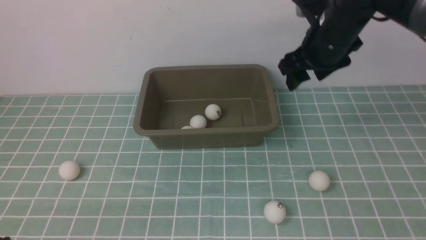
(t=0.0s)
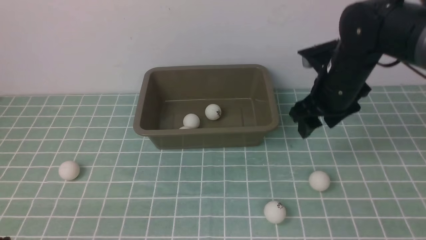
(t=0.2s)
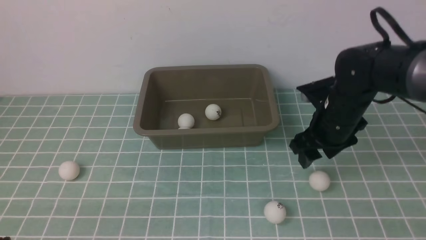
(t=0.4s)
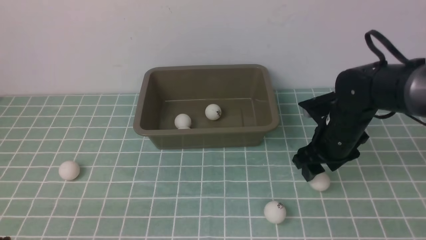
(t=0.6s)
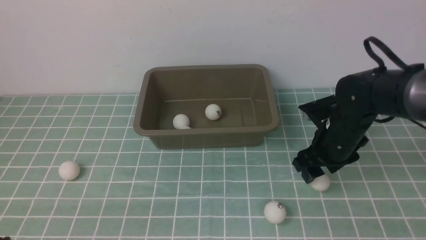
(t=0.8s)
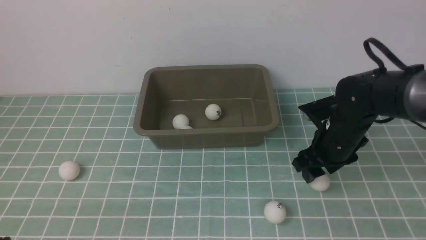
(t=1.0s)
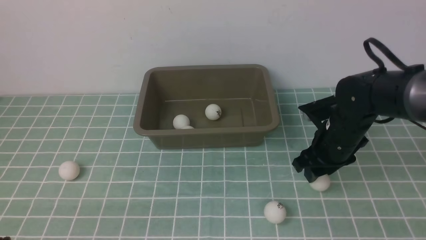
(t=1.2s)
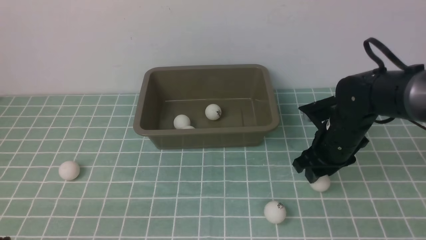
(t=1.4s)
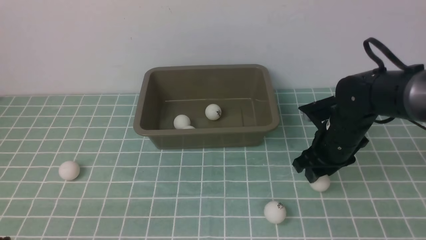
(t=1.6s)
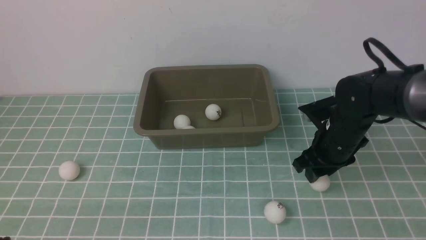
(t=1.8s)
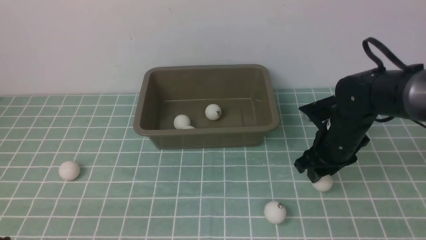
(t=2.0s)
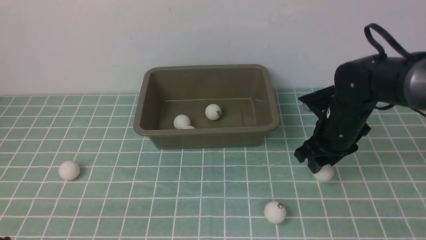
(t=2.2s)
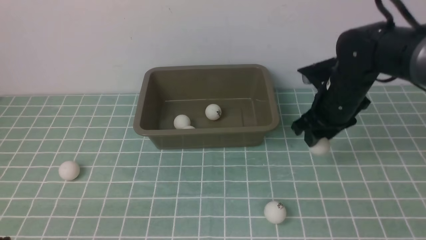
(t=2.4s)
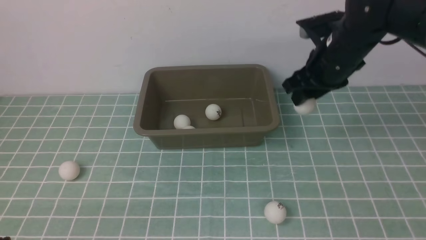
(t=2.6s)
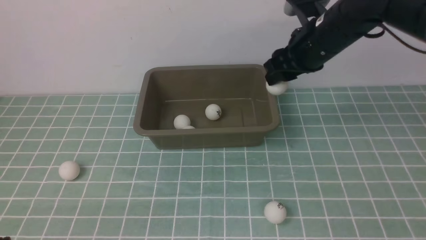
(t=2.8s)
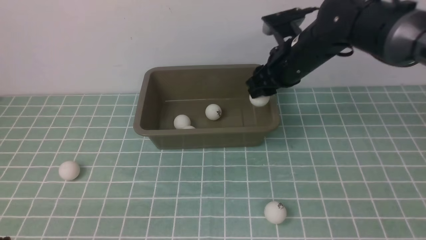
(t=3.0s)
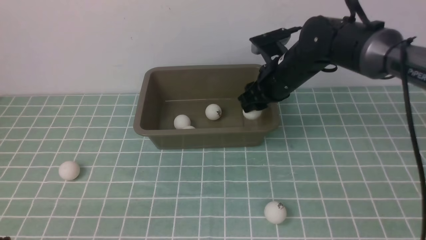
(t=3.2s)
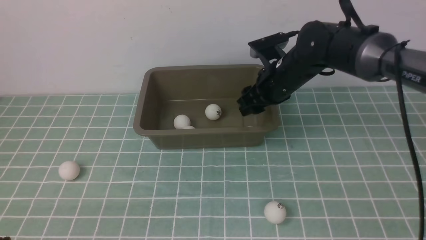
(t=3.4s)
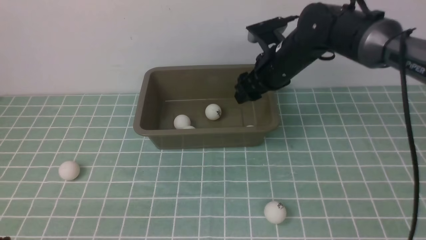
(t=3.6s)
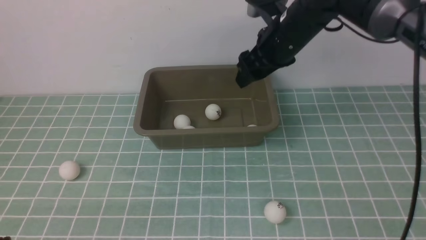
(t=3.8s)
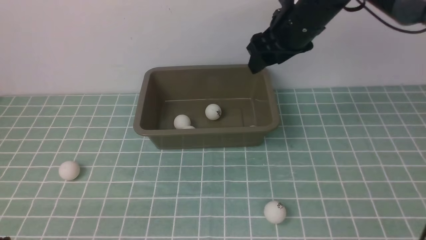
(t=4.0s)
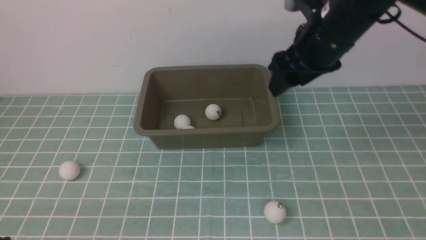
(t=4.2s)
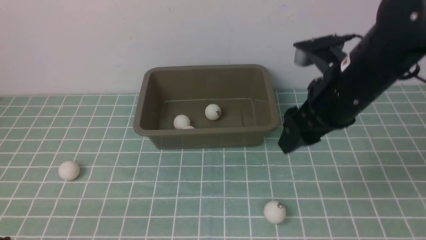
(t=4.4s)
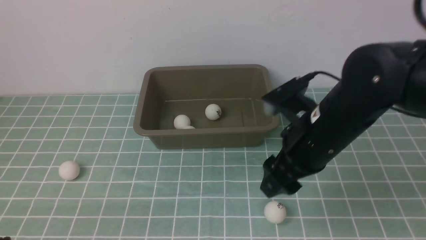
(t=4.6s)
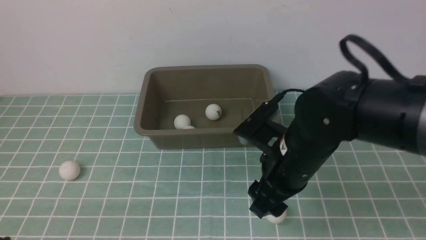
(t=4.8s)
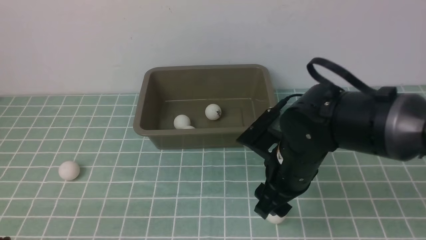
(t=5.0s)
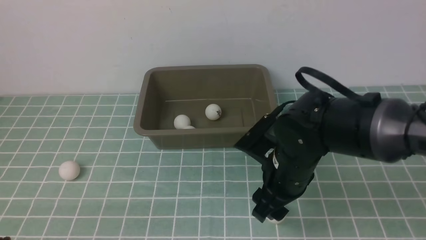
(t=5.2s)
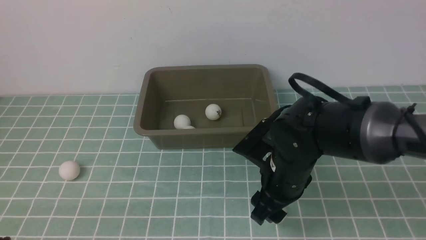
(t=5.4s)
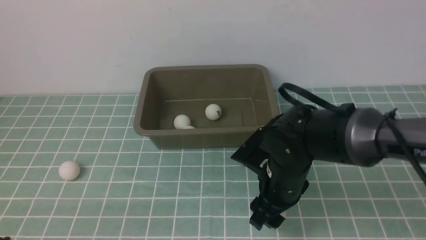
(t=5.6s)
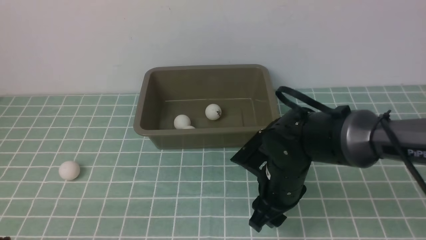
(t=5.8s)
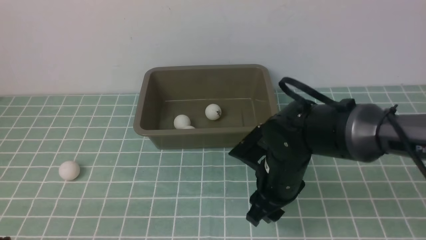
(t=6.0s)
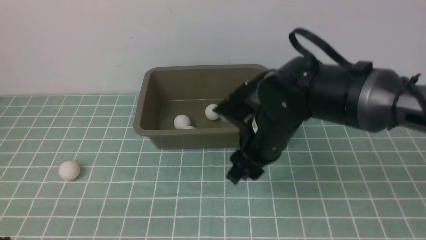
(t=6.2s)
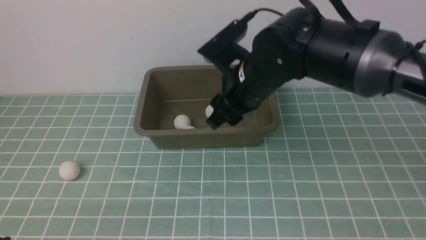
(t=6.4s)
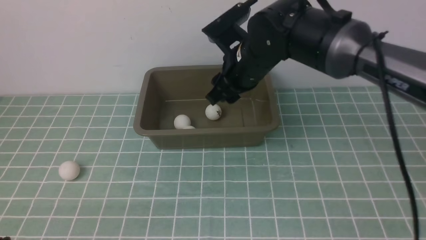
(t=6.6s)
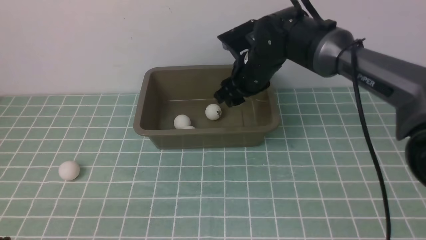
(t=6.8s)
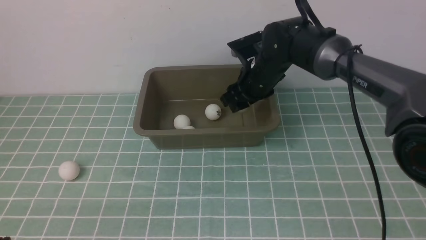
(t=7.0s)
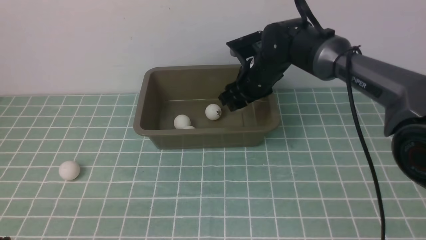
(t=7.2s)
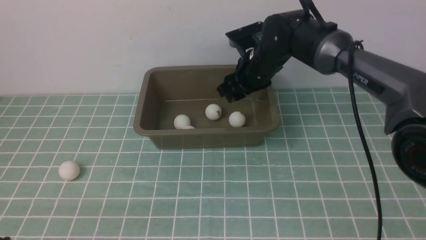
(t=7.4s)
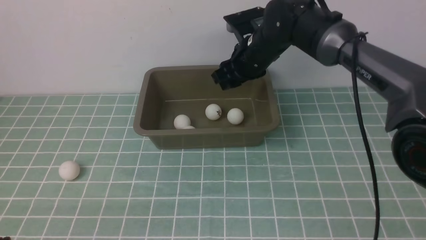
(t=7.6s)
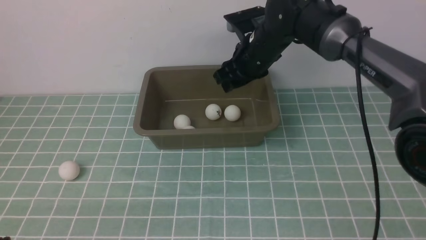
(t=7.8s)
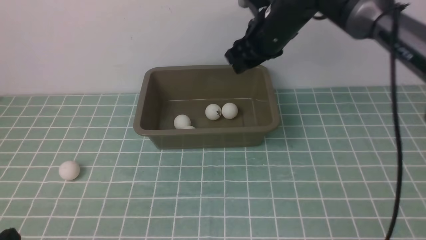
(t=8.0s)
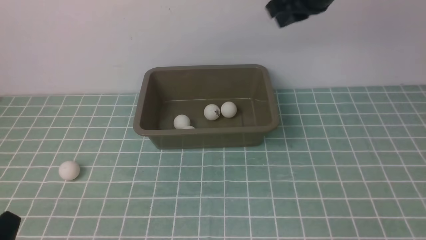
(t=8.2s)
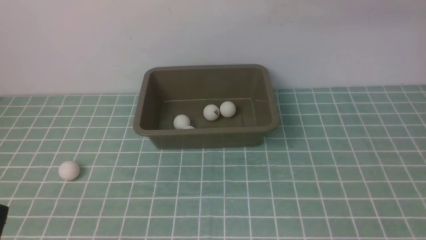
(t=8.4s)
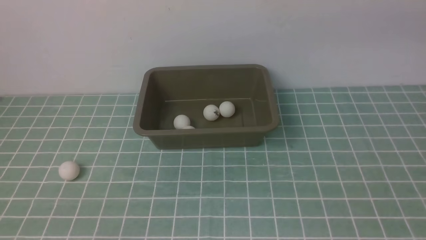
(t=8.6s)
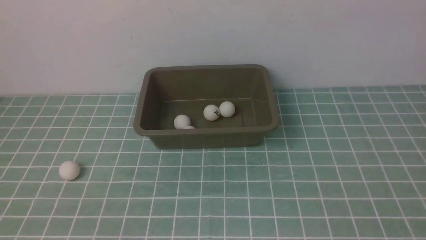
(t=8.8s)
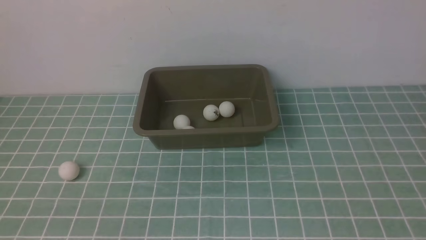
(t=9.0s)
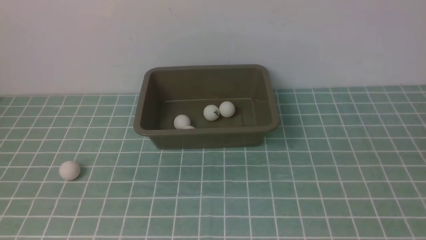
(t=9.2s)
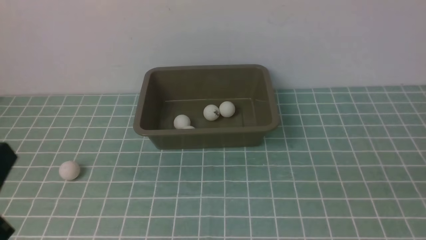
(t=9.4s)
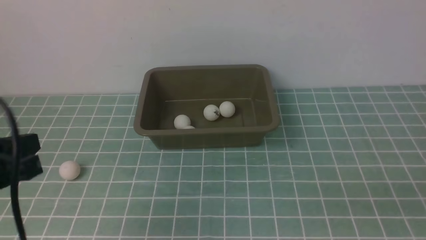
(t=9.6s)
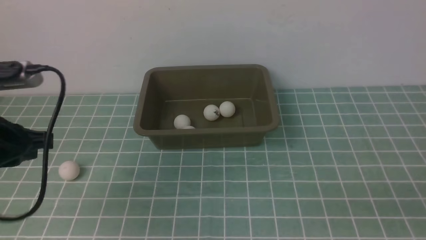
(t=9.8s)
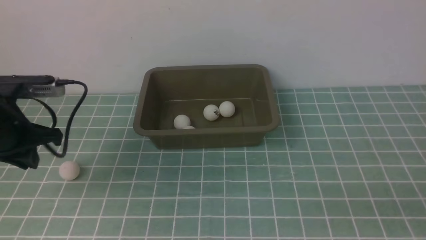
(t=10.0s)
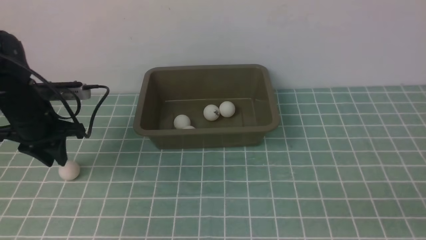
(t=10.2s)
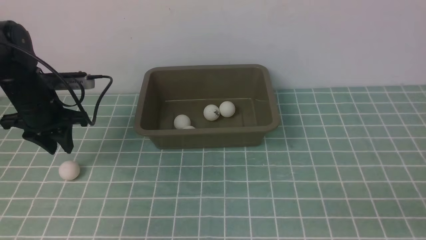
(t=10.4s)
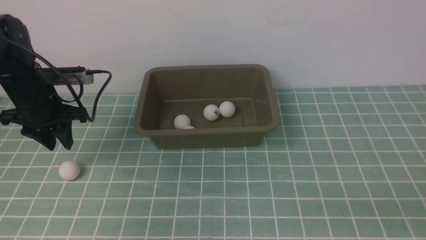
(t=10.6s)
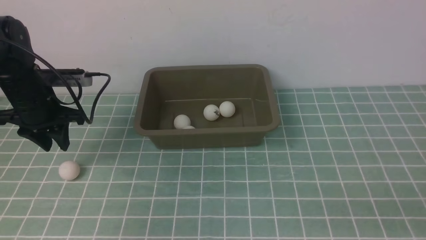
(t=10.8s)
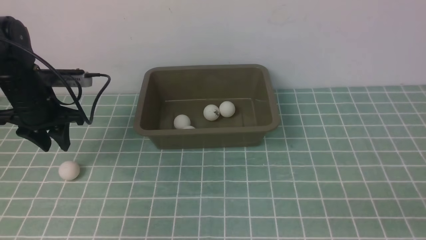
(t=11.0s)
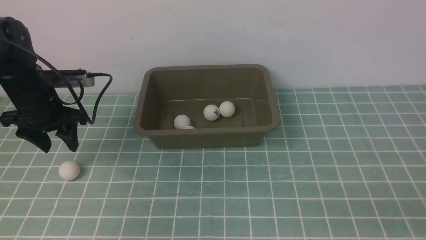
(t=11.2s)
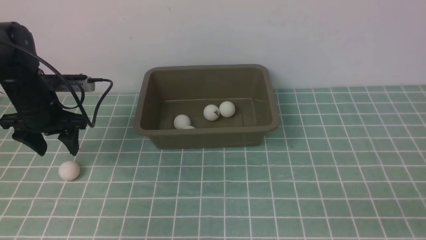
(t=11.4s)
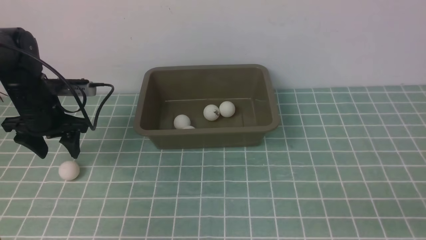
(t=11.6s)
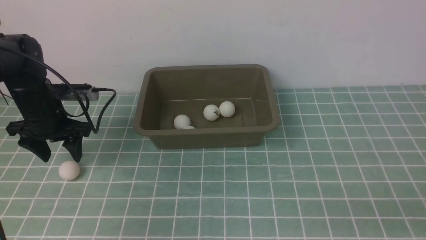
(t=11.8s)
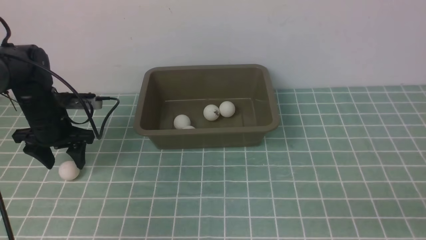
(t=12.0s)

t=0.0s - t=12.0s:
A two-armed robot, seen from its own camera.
Step, t=0.0s - t=2.4s: use the right arm to clamp the table tennis ball closest to it.
Step, t=2.6s - t=3.4s: use the right arm to put the table tennis ball into the box.
Step, t=3.8s - t=6.2s: use the right arm to clamp the table tennis ball closest to it.
Step, t=6.4s - t=7.4s: use the right arm to put the table tennis ball into the box.
t=0.0s - t=1.6s: The right gripper is displaced downward by about 10 cm.
t=1.6s - t=3.0s: The right gripper moves forward, upward and to the left, approximately 15 cm.
t=3.0s - t=4.4s: The right gripper is displaced backward by some 15 cm.
t=4.4s - t=6.0s: The right gripper moves forward and to the left, roughly 15 cm.
t=6.0s - t=7.6s: The right gripper is displaced upward and to the right by about 25 cm, and closes up.
t=7.6s - t=9.0s: The left gripper travels upward by some 10 cm, while the right gripper goes roughly 35 cm backward and downward.
t=9.0s - t=10.4s: The left gripper heads forward, covering approximately 30 cm, and opens its fingers.
t=10.4s - t=12.0s: The left gripper goes about 5 cm downward, and opens.

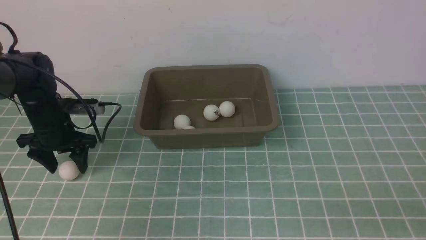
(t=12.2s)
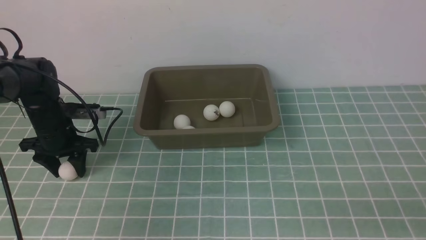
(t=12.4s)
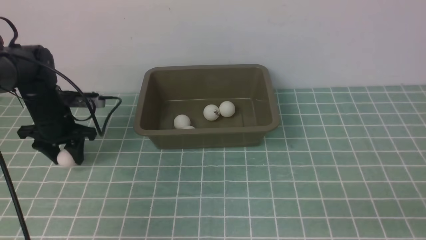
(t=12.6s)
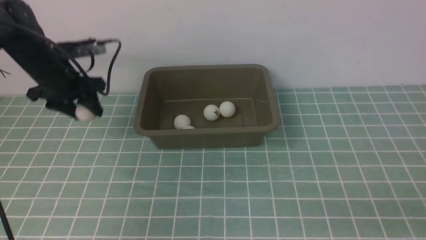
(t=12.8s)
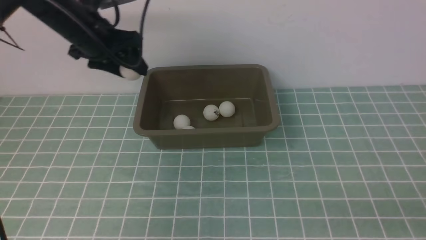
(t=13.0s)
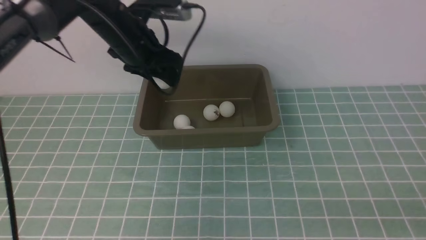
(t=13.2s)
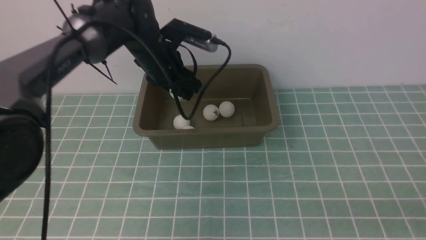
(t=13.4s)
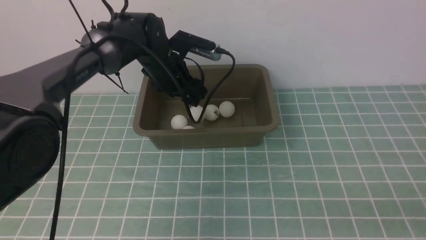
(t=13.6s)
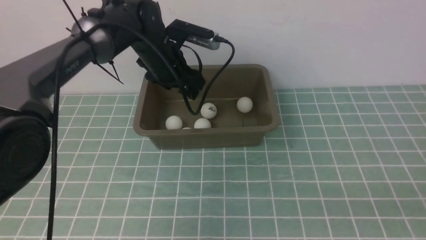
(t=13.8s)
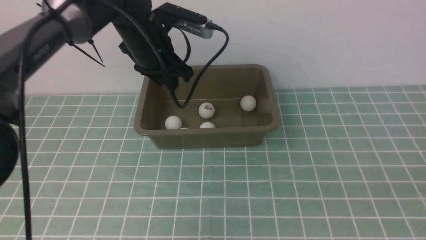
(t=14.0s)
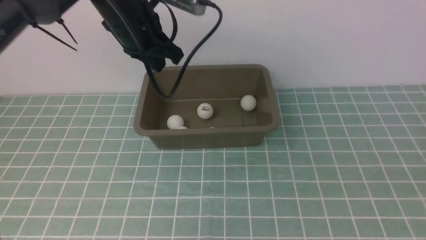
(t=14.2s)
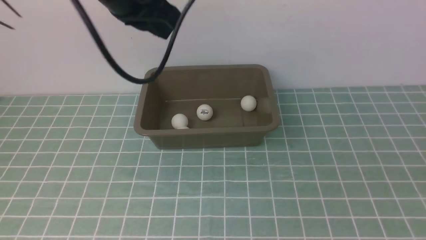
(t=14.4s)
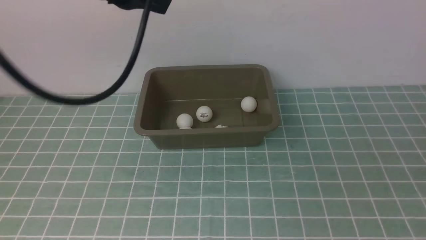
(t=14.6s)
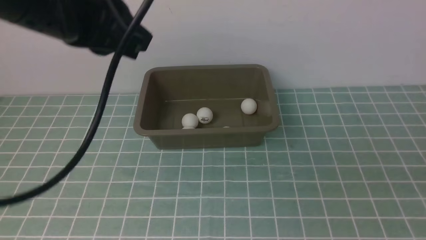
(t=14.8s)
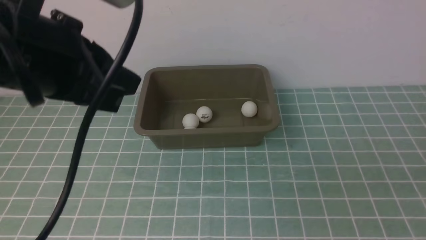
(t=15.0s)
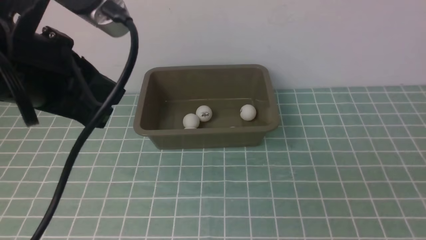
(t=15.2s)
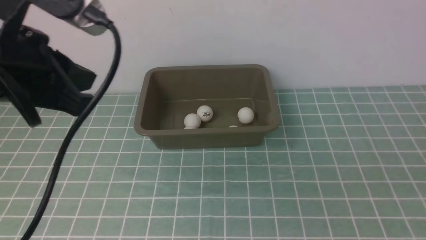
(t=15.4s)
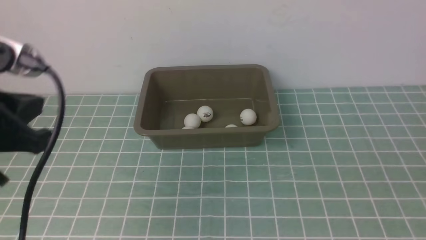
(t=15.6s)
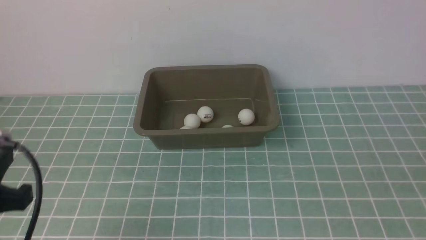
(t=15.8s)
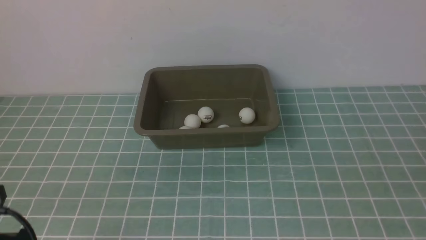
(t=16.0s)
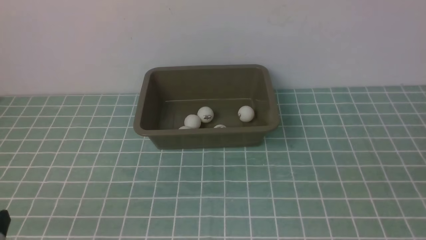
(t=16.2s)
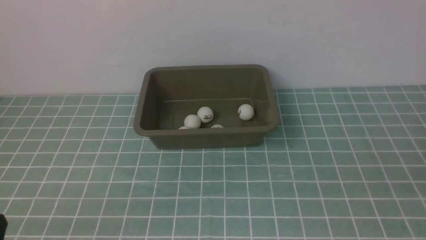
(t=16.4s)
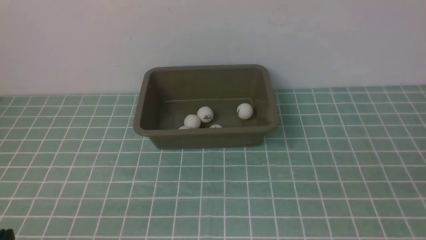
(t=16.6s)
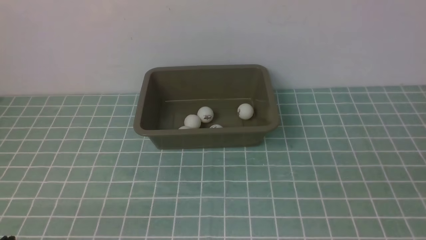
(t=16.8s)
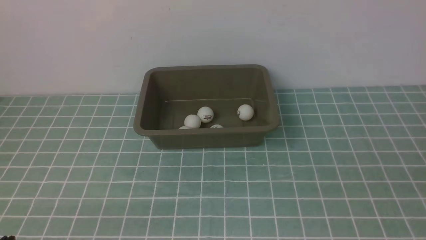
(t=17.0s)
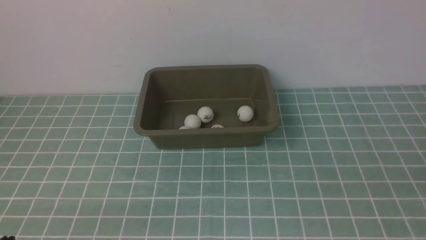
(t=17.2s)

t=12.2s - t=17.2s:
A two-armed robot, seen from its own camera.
Step, t=12.8s - t=14.2s: use the left arm to put the table tennis ball into the box.
t=12.2s - t=13.8s: The left gripper moves to the right and upward, approximately 25 cm, and closes its fingers.
t=13.8s - t=15.6s: The left gripper shifts about 35 cm backward and to the left, and closes.
t=15.6s - t=17.2s: The left gripper goes approximately 15 cm downward and backward.
